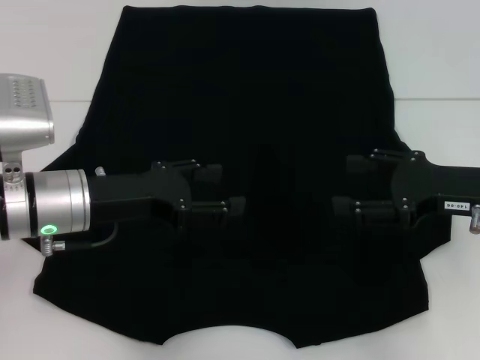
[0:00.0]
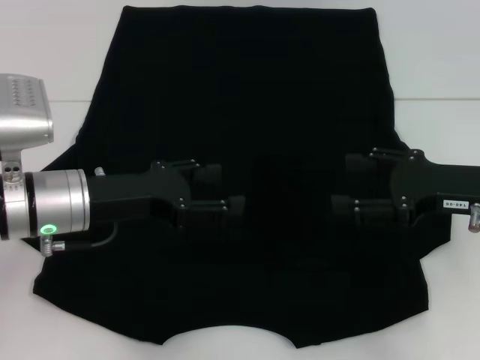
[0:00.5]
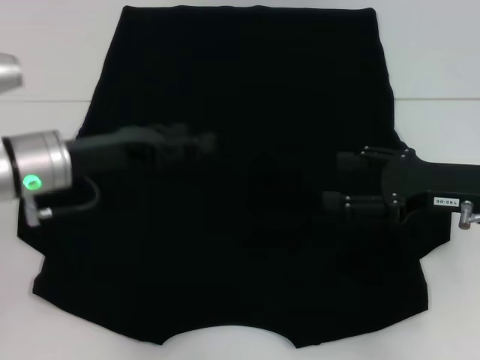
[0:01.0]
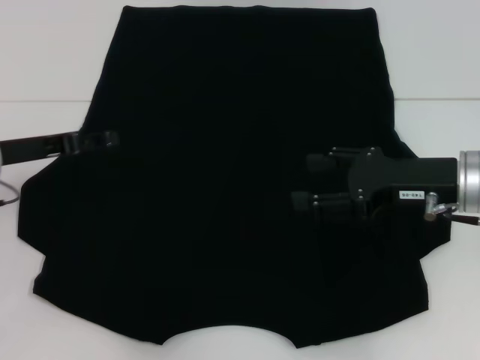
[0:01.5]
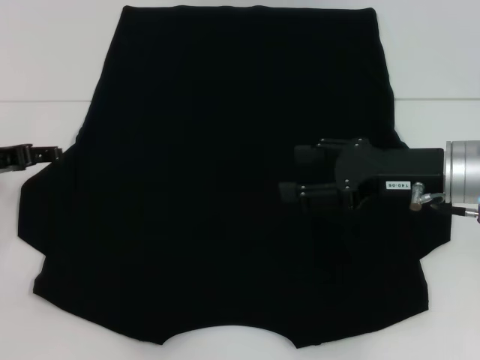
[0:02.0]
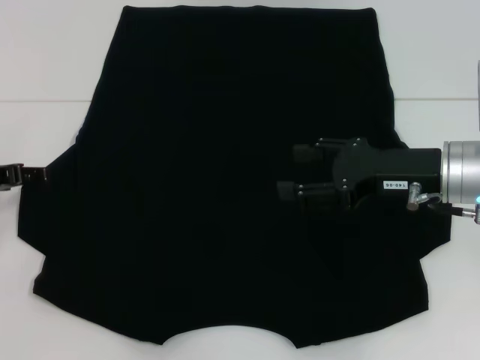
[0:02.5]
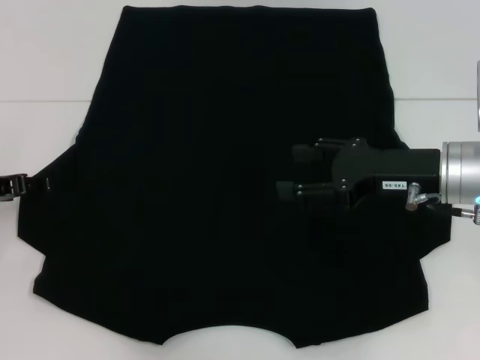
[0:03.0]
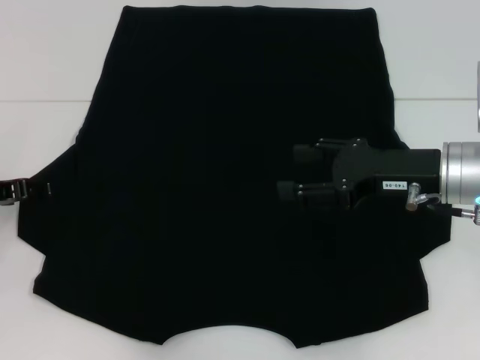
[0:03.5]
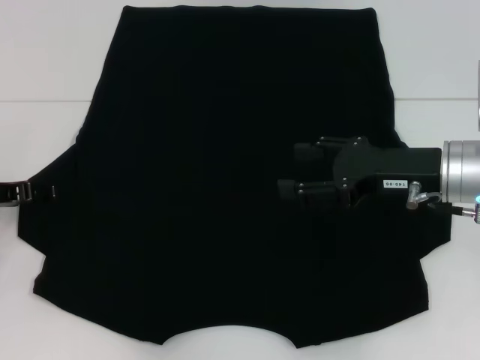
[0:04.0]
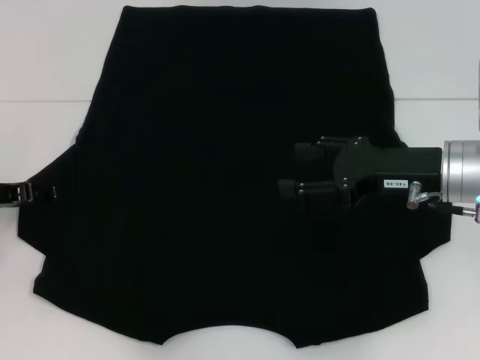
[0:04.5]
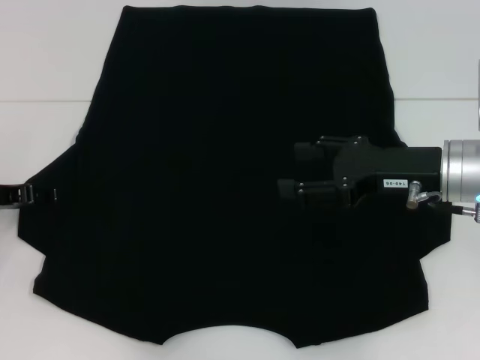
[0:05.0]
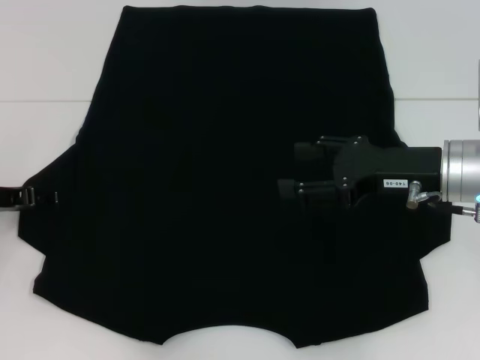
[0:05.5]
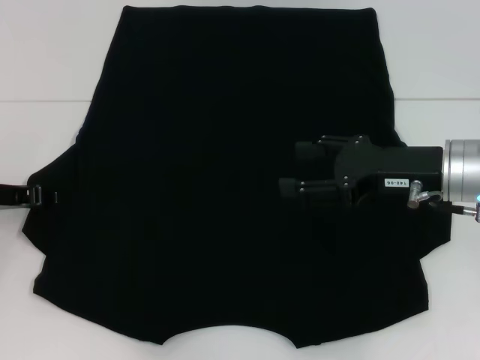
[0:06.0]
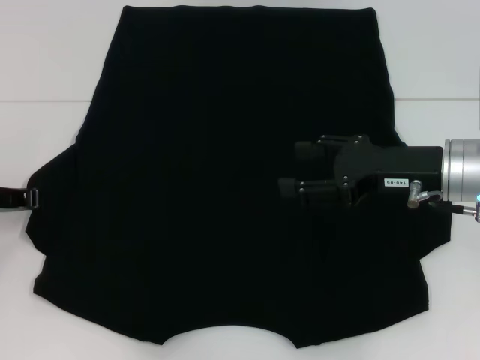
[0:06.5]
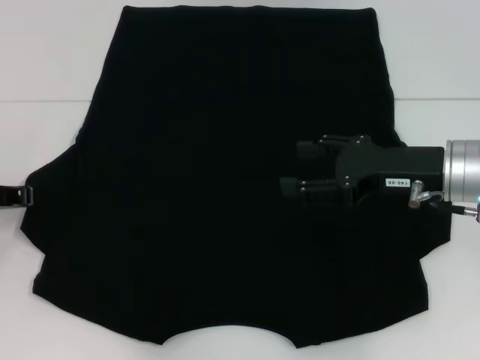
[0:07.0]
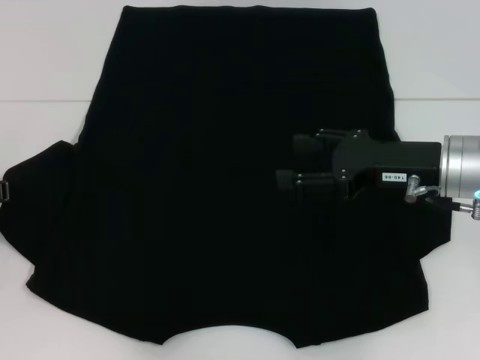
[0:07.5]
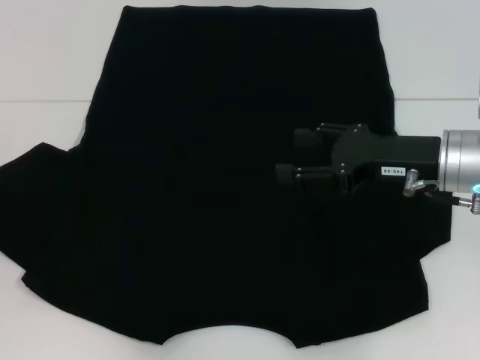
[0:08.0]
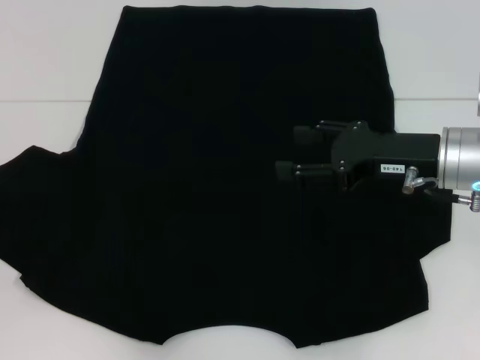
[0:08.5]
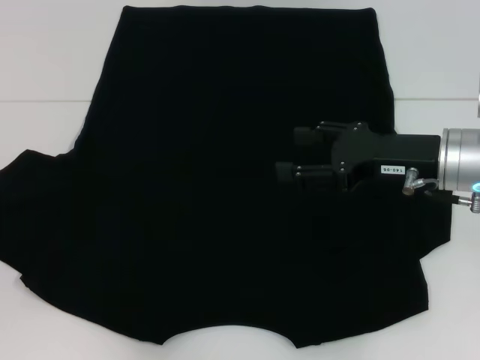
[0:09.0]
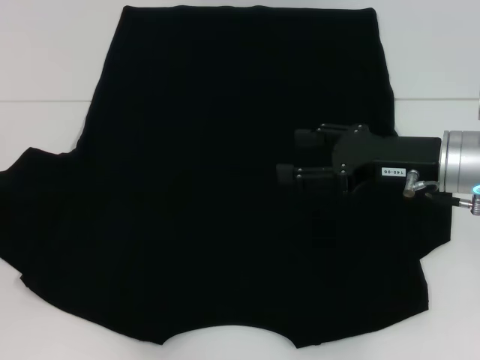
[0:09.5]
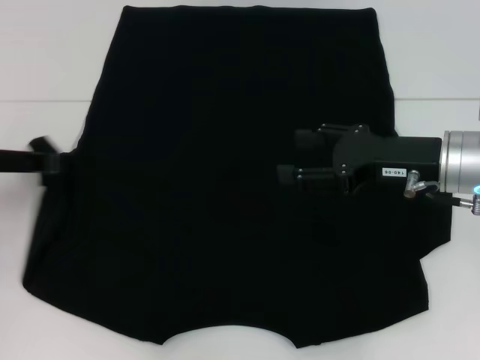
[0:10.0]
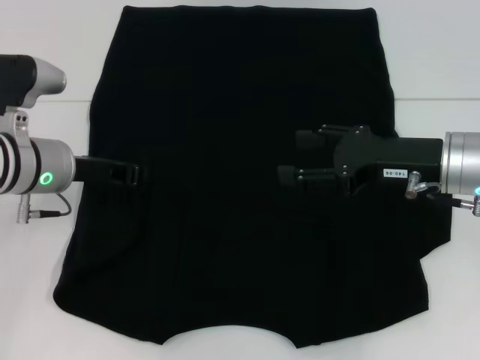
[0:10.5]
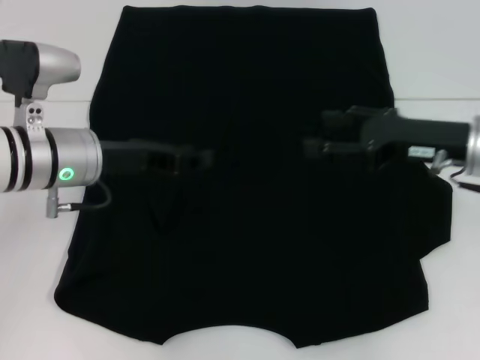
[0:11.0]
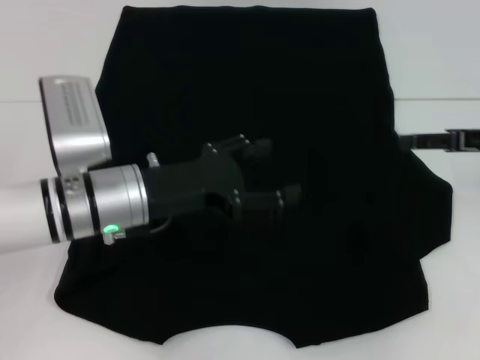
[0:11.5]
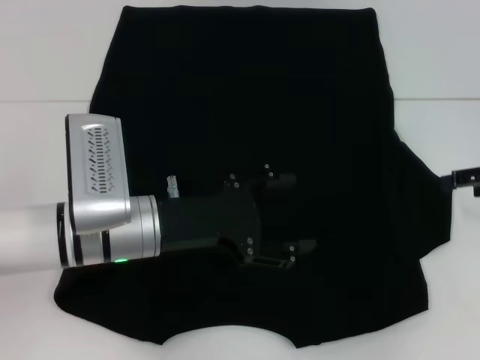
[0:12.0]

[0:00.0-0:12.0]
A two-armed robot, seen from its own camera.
Step, 0:00.0 to 0:10.5: Fold the bottom left sleeve with your left hand.
0:00.0 to 0:02.0: The left gripper shifts some 10 cm to the left. Meanwhile the right gripper shifts approximately 5 cm to the left.
0:02.0 to 0:04.0: The grippers make only small movements.
0:04.0 to 0:06.0: Neither gripper changes place.
0:06.0 to 0:08.0: The left gripper closes up.
0:08.0 to 0:10.0: The left gripper moves to the right, approximately 5 cm.
0:10.0 to 0:12.0: The two grippers go about 15 cm to the right. The left gripper opens up.

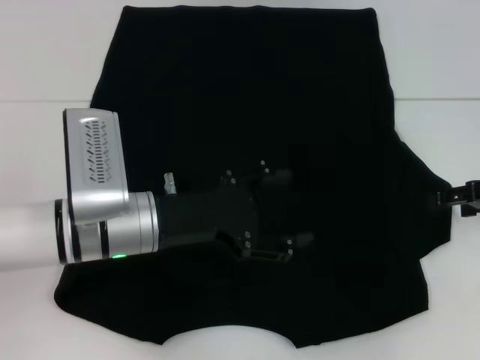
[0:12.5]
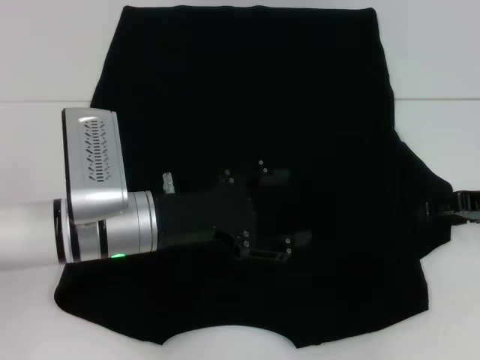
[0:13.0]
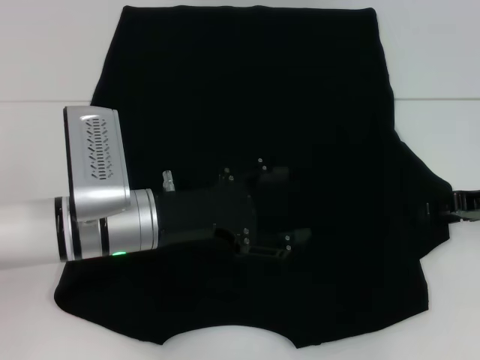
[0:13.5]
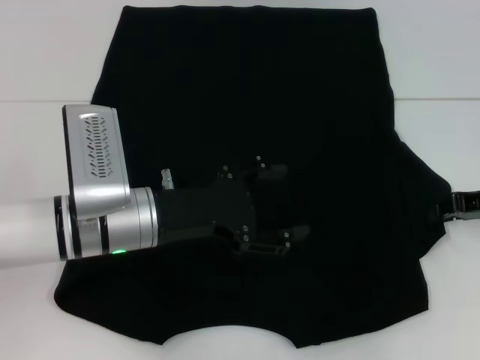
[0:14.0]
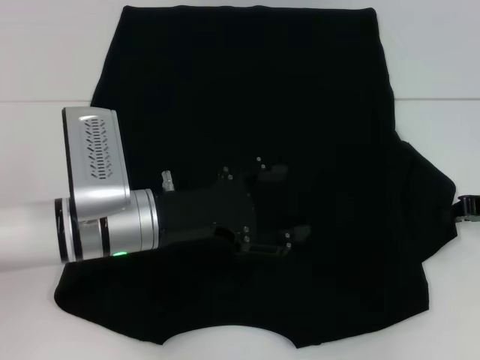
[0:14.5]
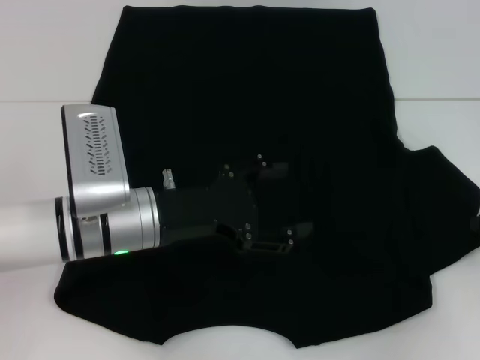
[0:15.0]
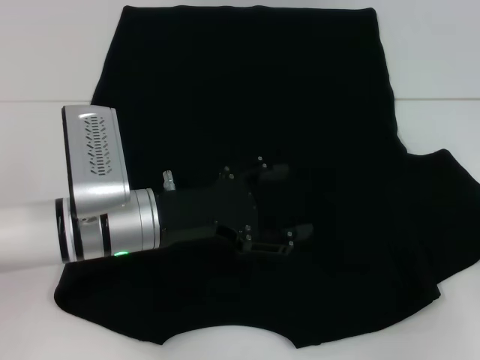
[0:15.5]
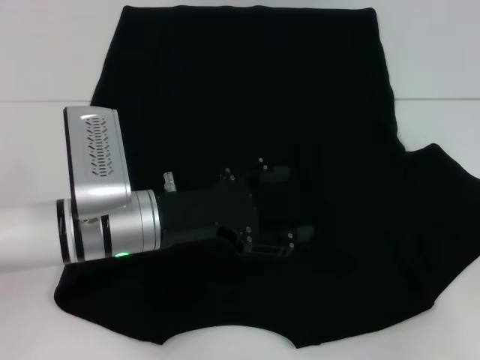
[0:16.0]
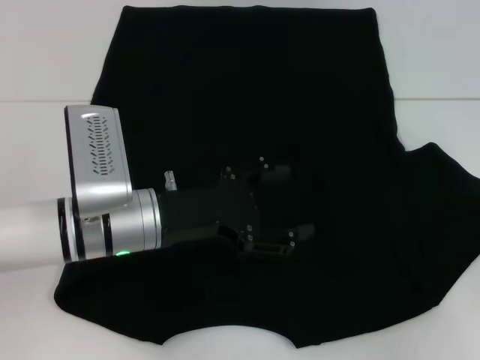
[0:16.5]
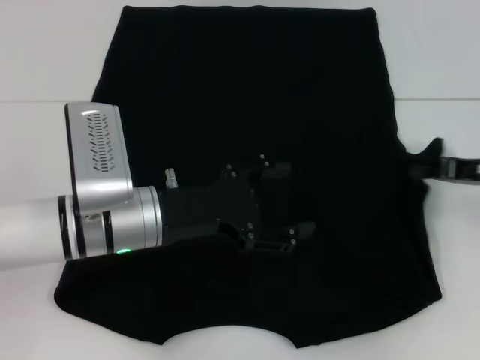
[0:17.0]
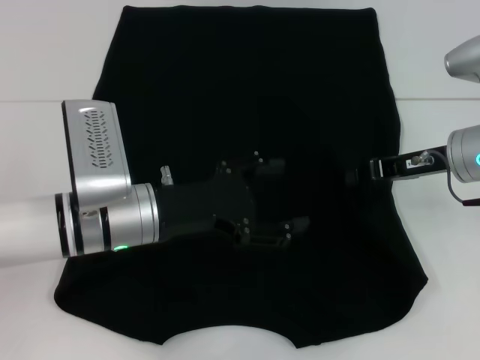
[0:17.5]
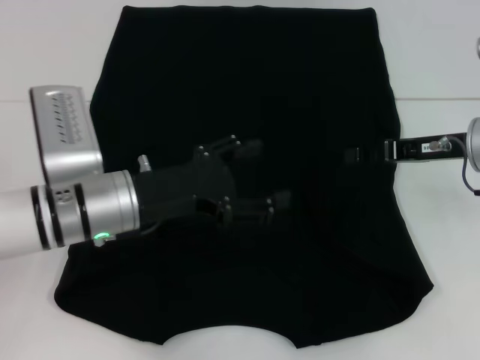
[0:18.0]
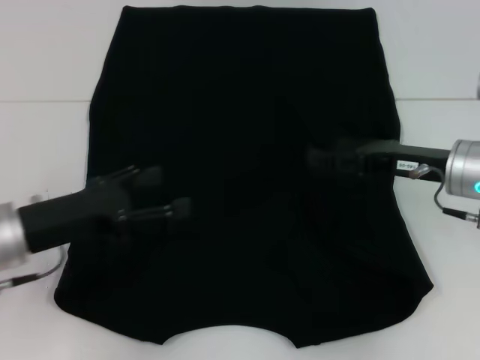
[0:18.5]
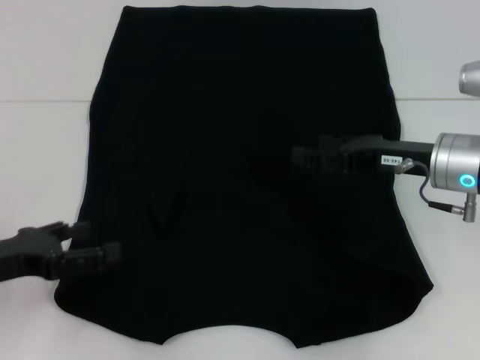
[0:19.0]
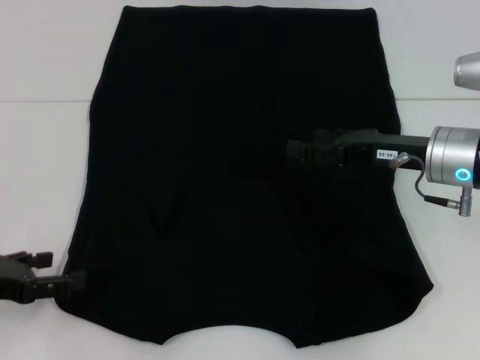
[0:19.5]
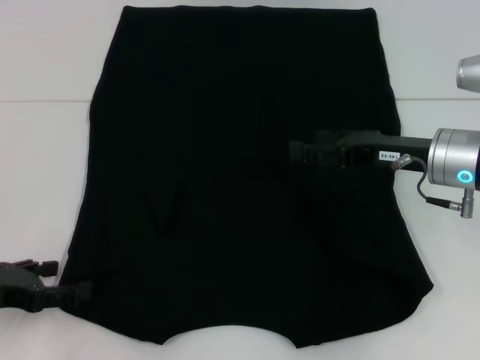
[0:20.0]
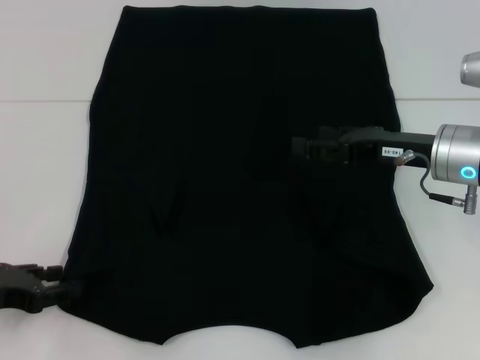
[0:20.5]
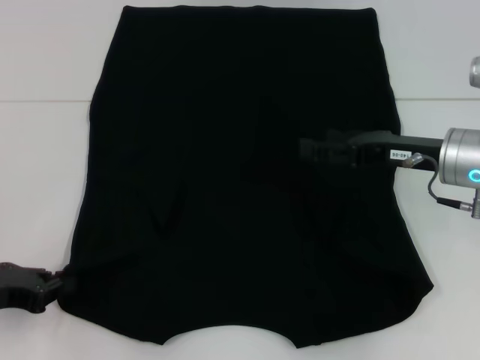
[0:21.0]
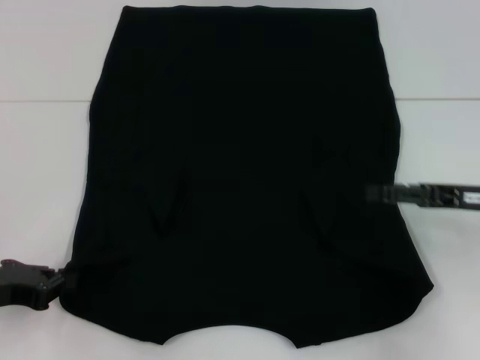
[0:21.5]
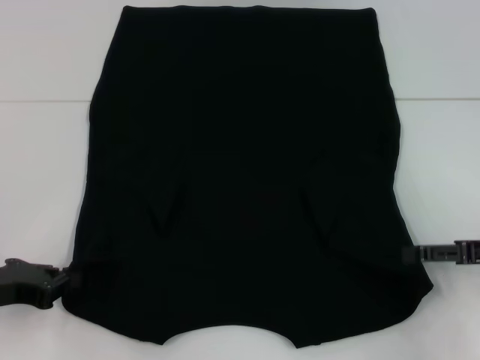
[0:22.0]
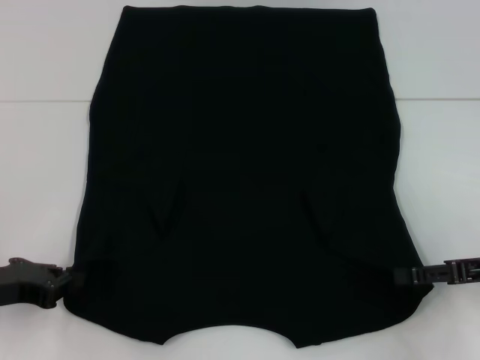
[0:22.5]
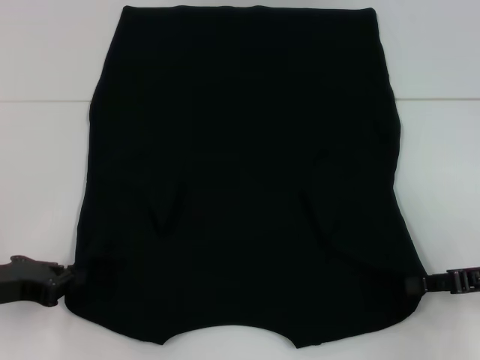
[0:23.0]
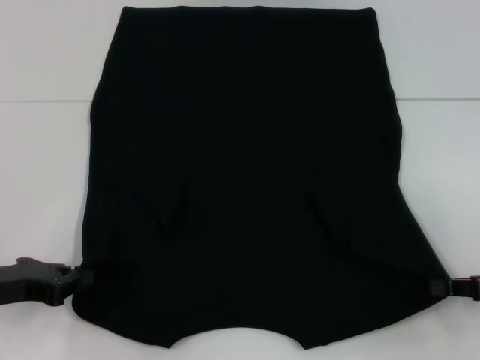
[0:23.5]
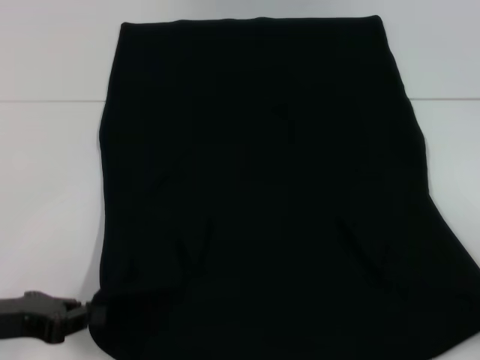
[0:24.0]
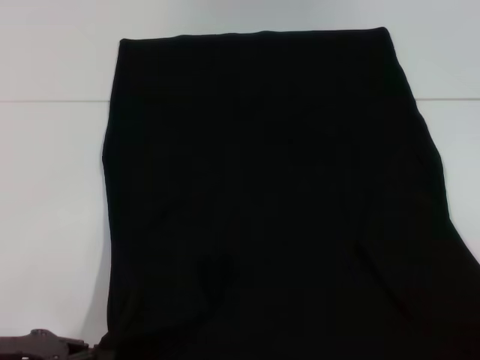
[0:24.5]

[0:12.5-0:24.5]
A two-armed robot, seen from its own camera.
Step, 0:12.5 to 0:17.5: Fold the bottom right sleeve with your right hand.
Step, 0:18.0 to 0:21.0: Grab the bottom left corner with your left hand.
Step, 0:21.5 to 0:23.0: Grab the bottom right corner with your right hand.
0:12.5 to 0:14.5: The right gripper closes its fingers.
0:14.5 to 0:16.5: The right gripper shifts some 5 cm to the right.
0:16.5 to 0:18.5: Both grippers move to the left, about 15 cm. The right gripper opens its fingers.
0:18.5 to 0:20.5: The left gripper is displaced to the left by approximately 10 cm.
0:20.5 to 0:22.5: The left gripper closes up; the right gripper is displaced to the right and backward by roughly 15 cm.
0:22.5 to 0:24.5: The right gripper heads backward and to the right, covering some 15 cm, and closes. The left gripper moves backward, about 5 cm.

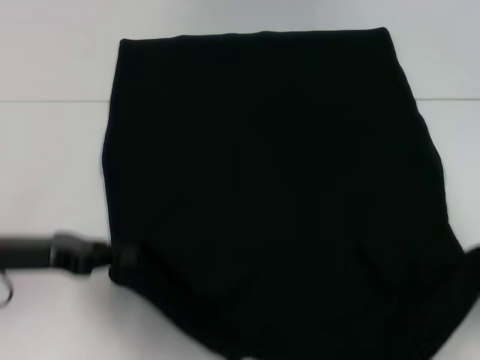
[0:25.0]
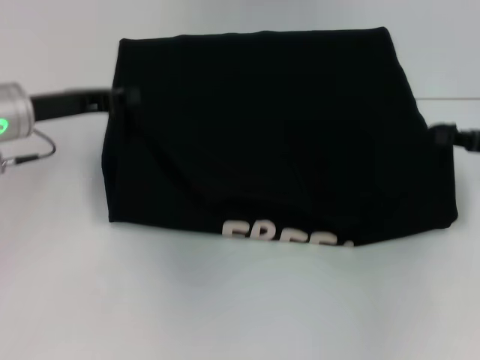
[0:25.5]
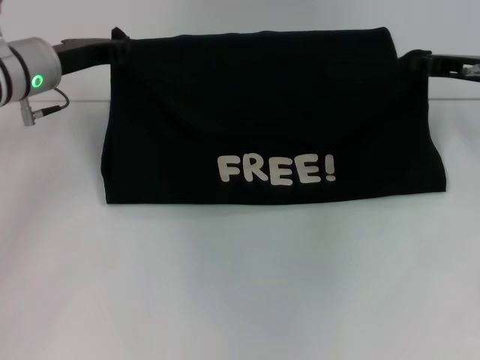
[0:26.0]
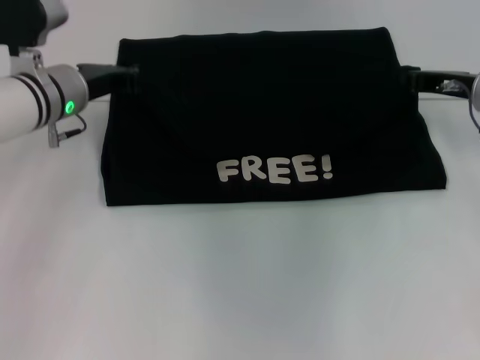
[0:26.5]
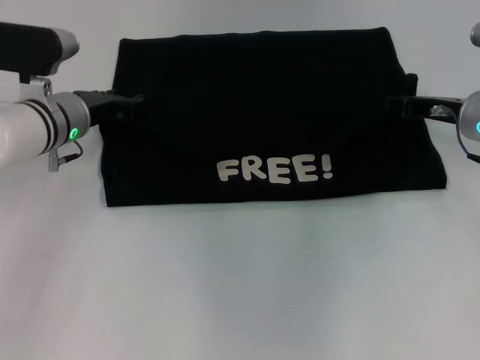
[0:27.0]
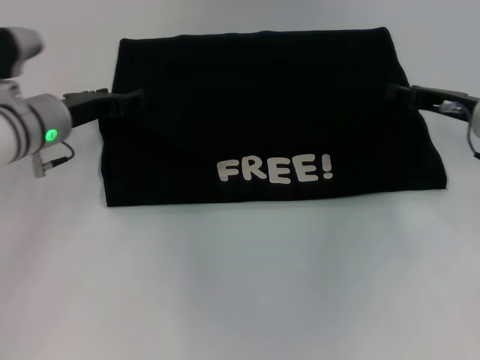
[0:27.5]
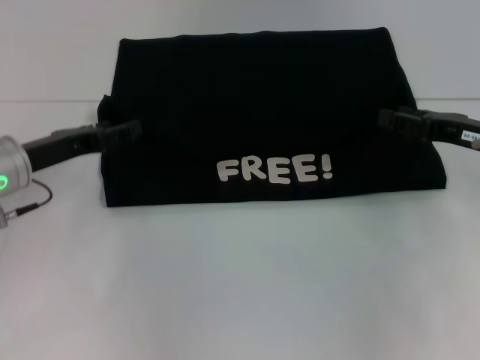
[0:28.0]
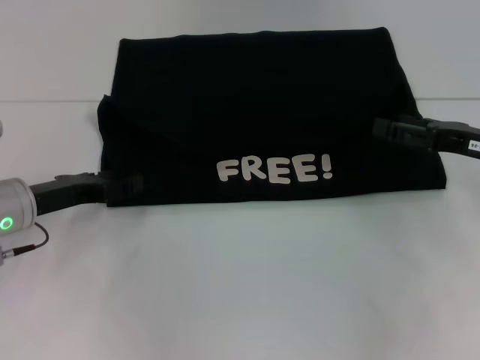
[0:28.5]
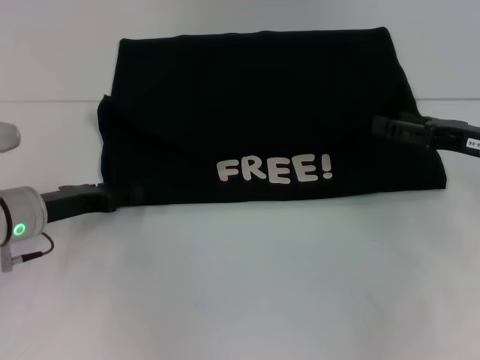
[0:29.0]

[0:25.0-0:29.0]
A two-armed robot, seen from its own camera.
Step, 0:25.0 to 0:27.0: Fold the clothes with your left hand.
Step, 0:25.0 to 0:27.0: Fold the clothes with your right hand.
0:25.0 to 0:27.0: The left gripper goes about 20 cm forward and to the right. Meanwhile the right gripper heads forward and to the left, covering some 25 cm.
0:27.0 to 0:29.0: The two grippers go approximately 10 cm backward. The right gripper opens its fingers; the left gripper opens its fingers.
